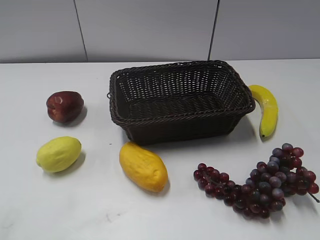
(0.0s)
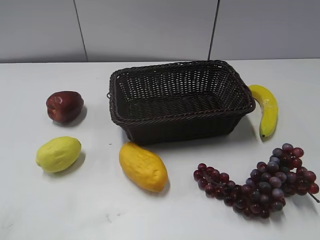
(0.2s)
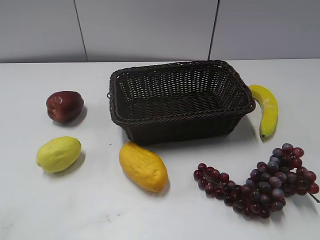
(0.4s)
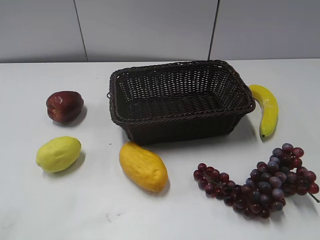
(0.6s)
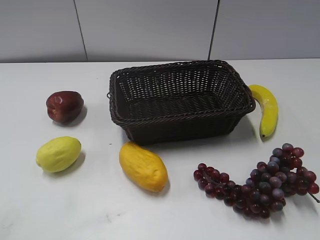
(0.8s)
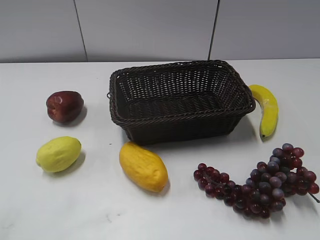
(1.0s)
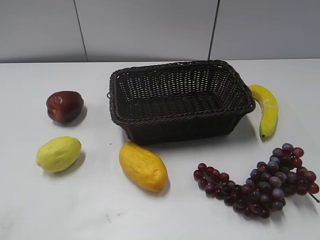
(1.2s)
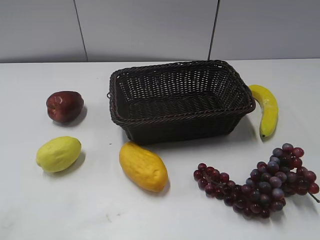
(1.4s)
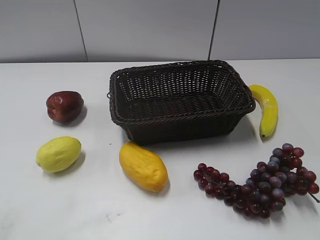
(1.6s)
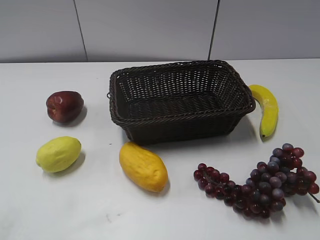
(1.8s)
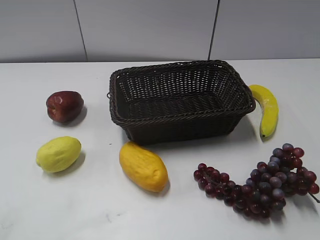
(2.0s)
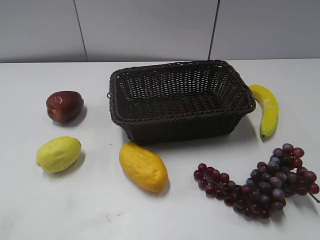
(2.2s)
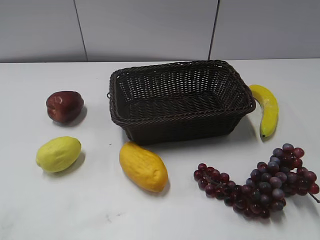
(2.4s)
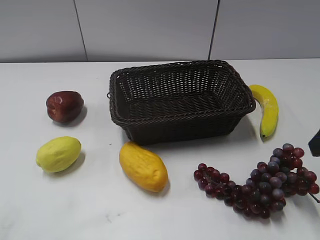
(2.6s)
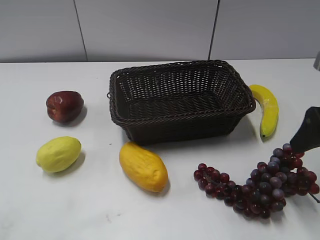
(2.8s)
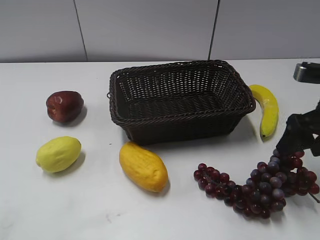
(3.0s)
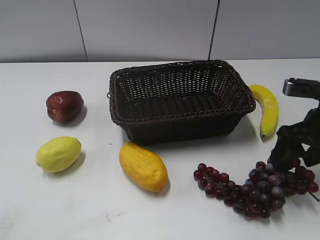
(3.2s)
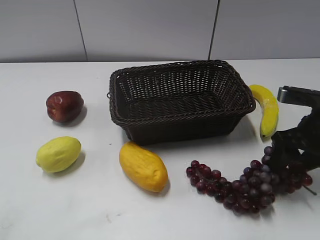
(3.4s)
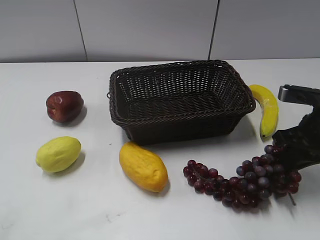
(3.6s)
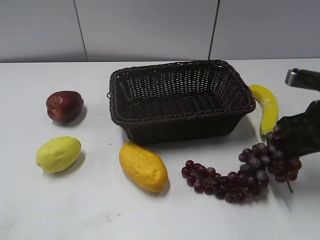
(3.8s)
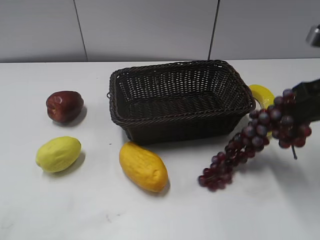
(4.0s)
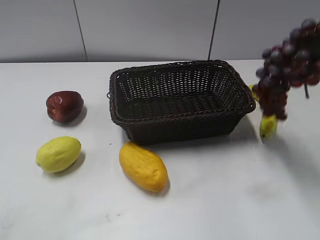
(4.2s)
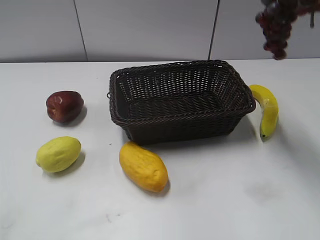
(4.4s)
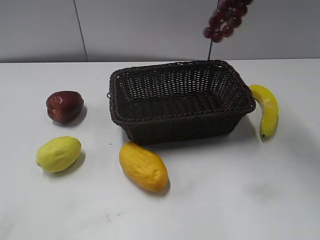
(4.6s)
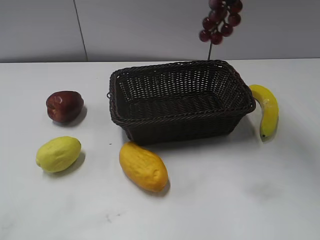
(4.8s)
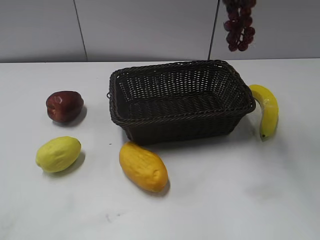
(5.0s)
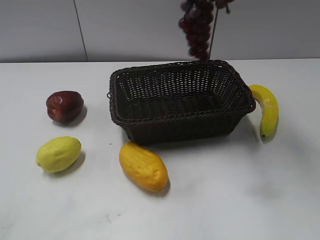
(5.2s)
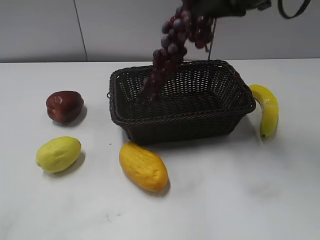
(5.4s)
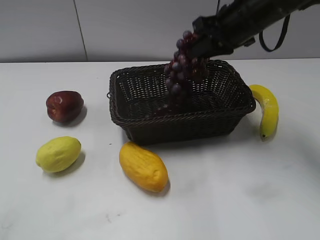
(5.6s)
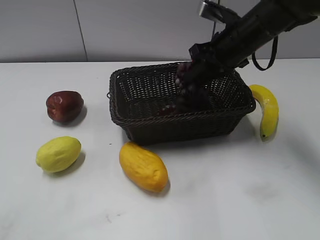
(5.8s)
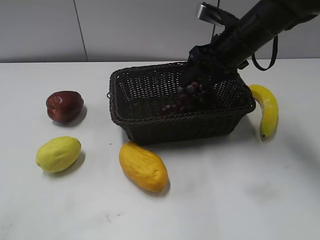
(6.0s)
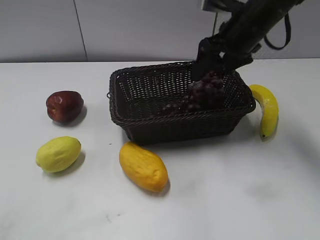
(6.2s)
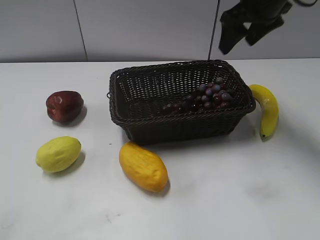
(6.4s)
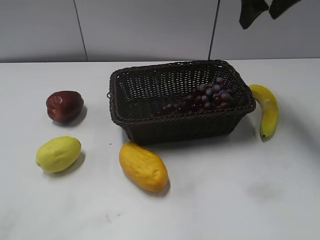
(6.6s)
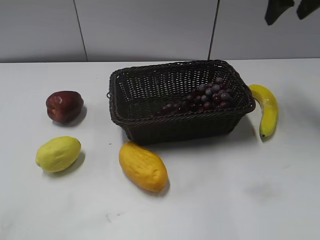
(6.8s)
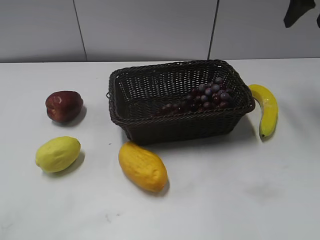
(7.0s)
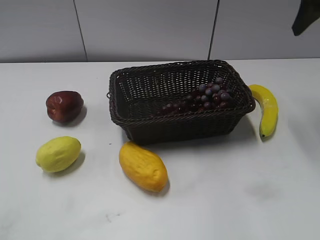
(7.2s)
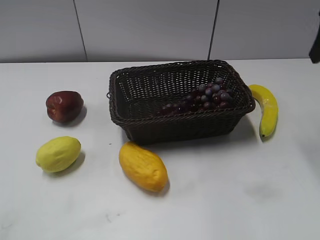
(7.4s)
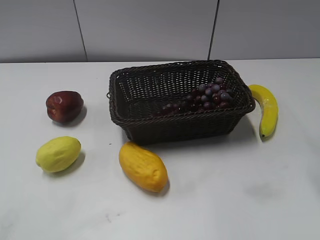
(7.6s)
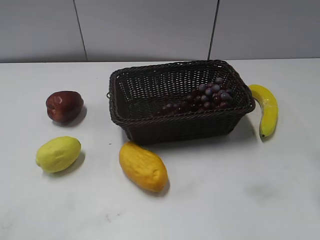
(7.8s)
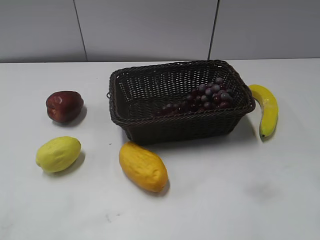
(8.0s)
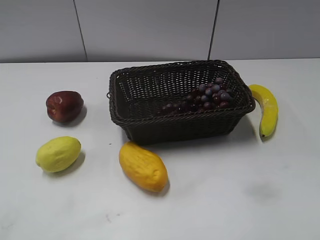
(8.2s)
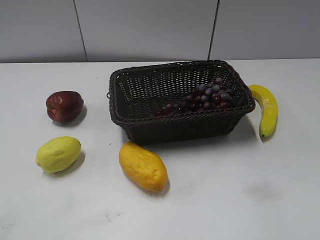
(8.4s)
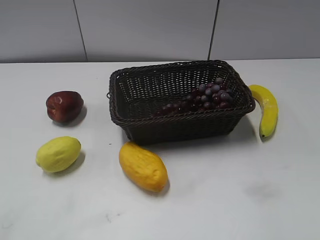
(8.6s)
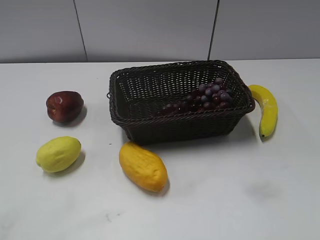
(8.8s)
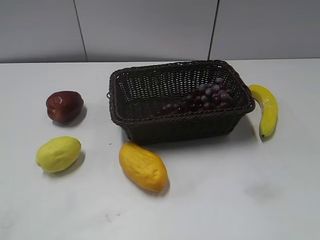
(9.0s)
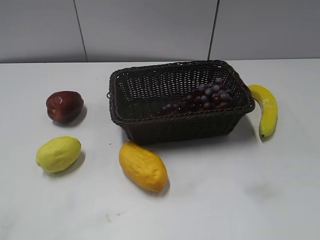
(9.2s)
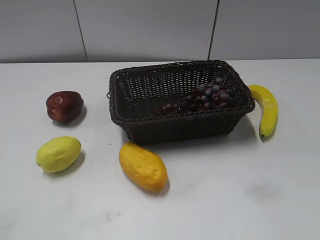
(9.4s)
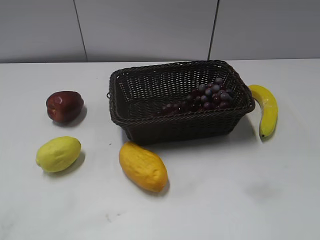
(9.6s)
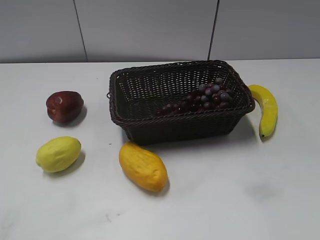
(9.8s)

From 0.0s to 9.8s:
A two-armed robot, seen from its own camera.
Step, from 2.6s to 3.6s: Grasp the grape with right gripper.
Step, from 3.8s to 6.2s: Place the grape in the basket with right gripper.
From 1.4s to 2.8s: The right gripper goes about 20 cm forward.
From 2.8s to 4.2s: The right gripper travels upward by about 10 cm, and closes up.
From 4.2s to 5.6s: The right gripper shifts some 20 cm forward, to the left and downward.
From 5.6s to 7.0s: The right gripper heads to the right and upward, covering approximately 15 cm, and opens.
From 7.0s to 8.4s: The right gripper travels backward by about 30 cm.

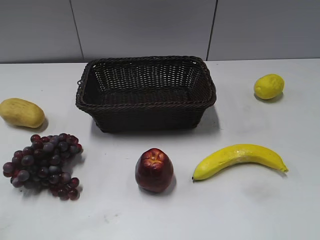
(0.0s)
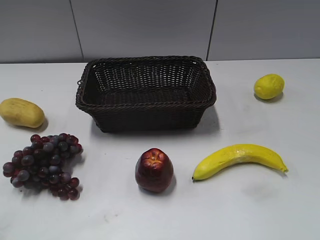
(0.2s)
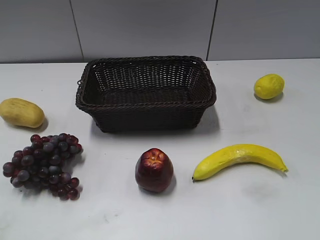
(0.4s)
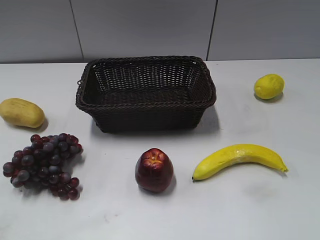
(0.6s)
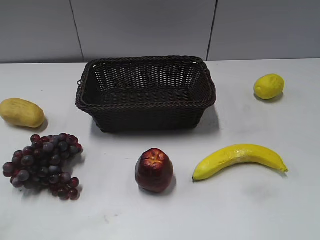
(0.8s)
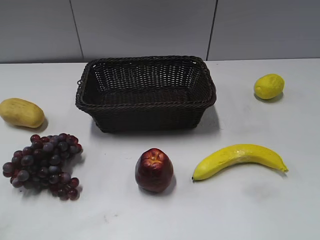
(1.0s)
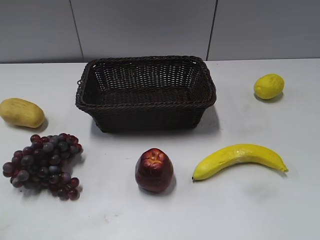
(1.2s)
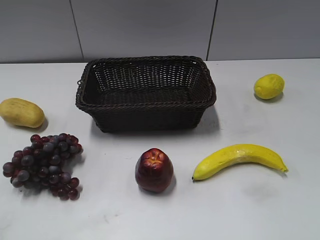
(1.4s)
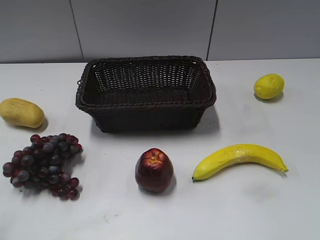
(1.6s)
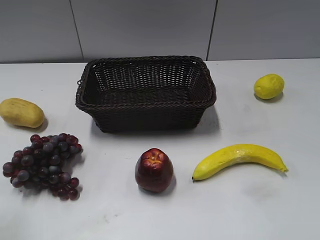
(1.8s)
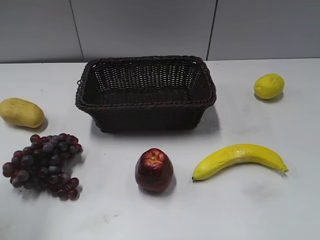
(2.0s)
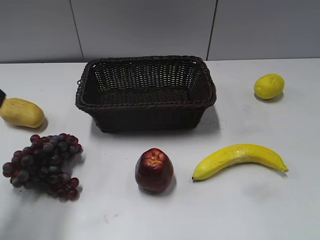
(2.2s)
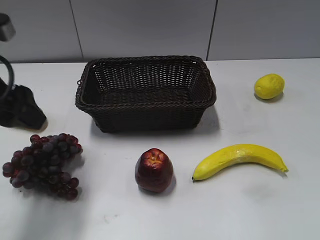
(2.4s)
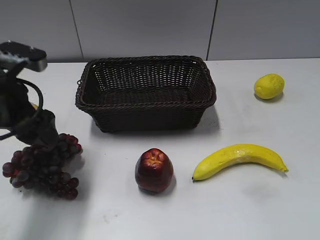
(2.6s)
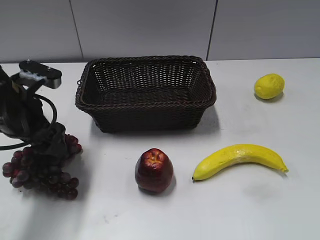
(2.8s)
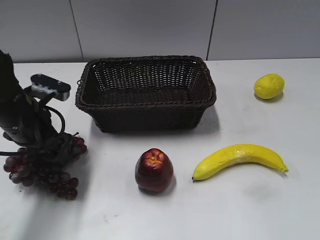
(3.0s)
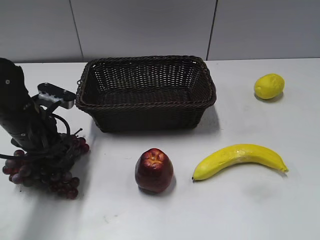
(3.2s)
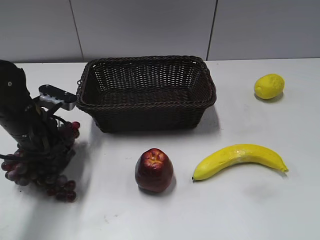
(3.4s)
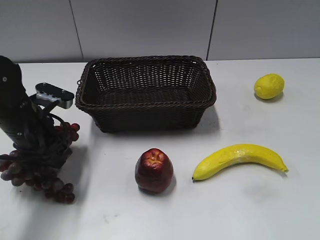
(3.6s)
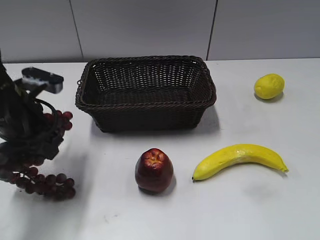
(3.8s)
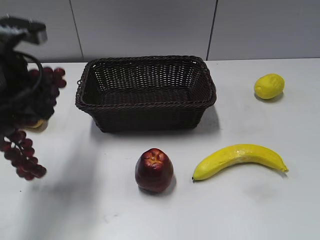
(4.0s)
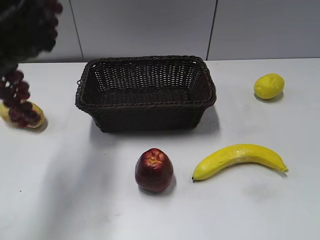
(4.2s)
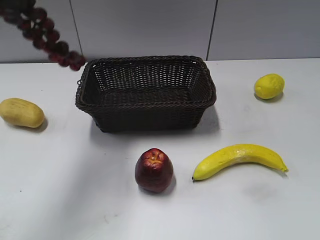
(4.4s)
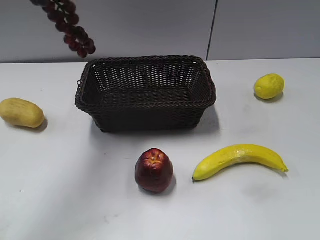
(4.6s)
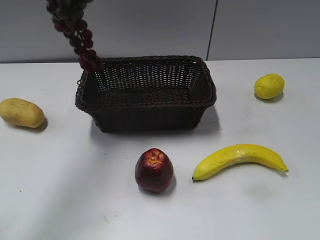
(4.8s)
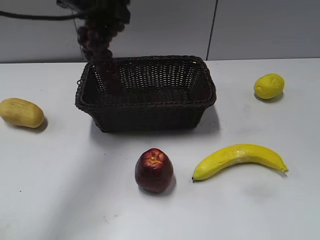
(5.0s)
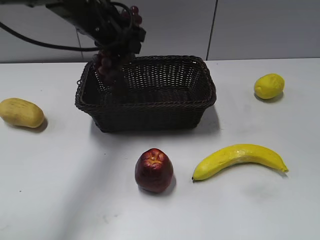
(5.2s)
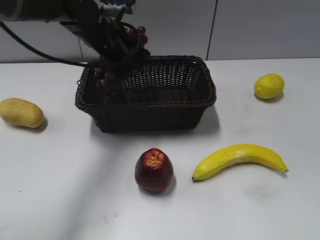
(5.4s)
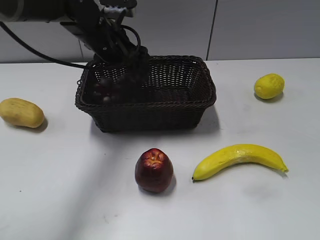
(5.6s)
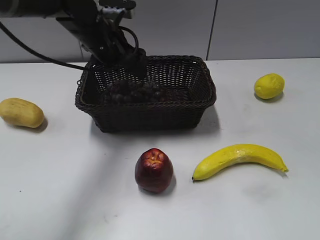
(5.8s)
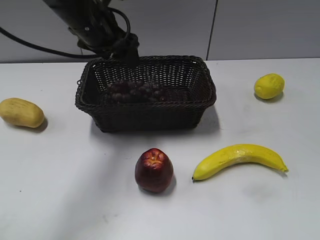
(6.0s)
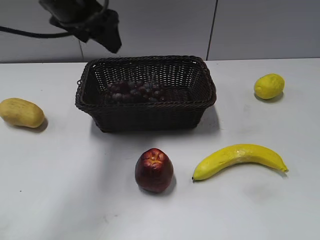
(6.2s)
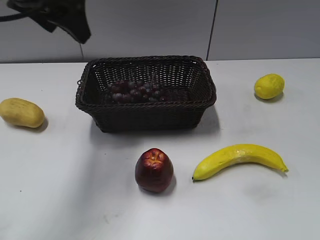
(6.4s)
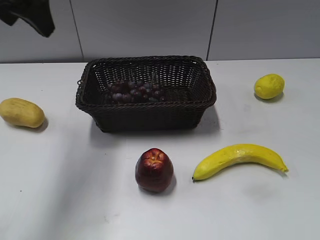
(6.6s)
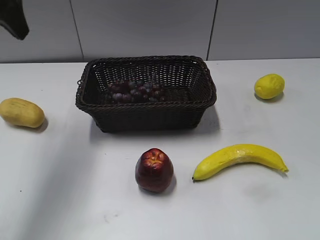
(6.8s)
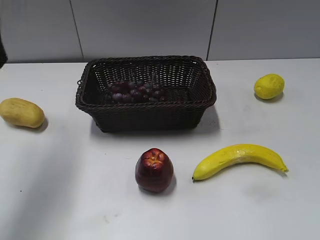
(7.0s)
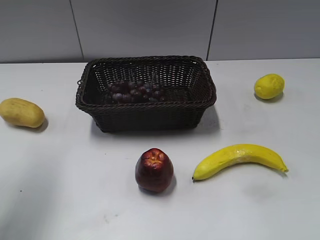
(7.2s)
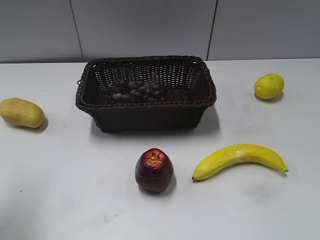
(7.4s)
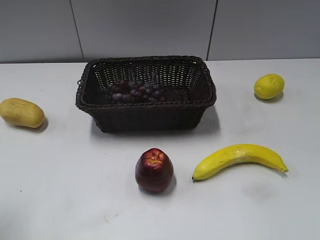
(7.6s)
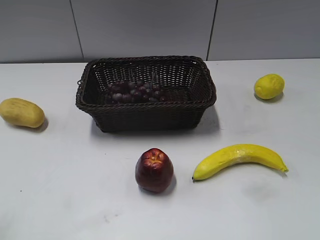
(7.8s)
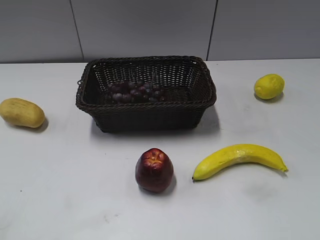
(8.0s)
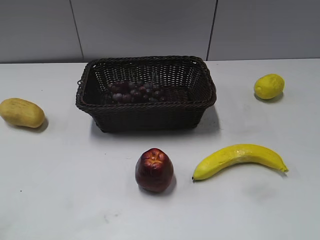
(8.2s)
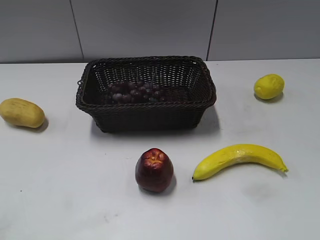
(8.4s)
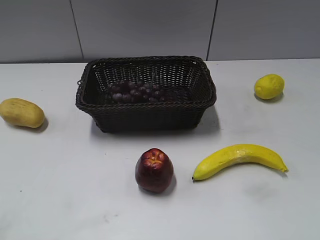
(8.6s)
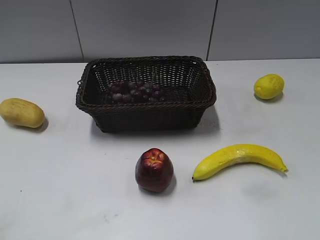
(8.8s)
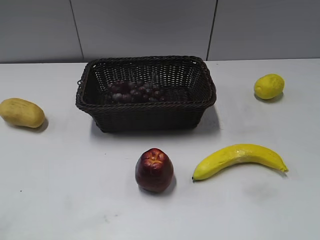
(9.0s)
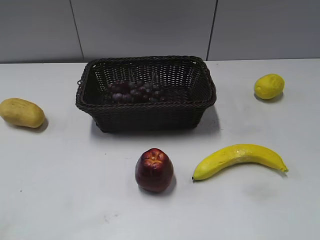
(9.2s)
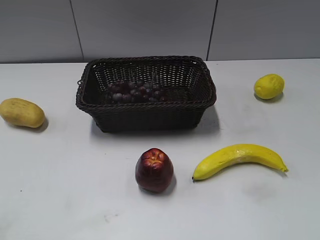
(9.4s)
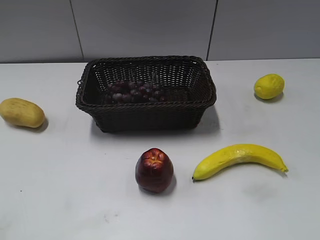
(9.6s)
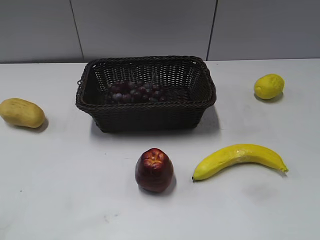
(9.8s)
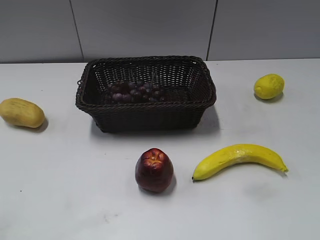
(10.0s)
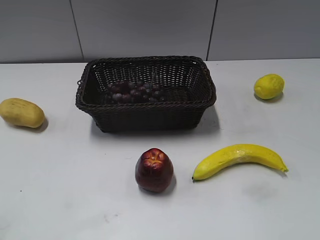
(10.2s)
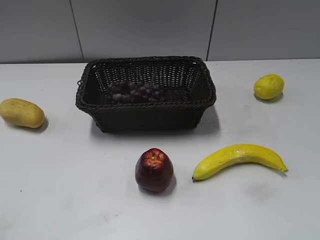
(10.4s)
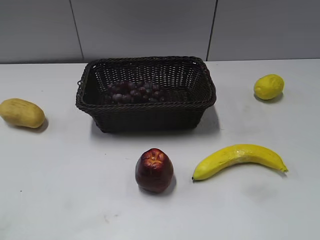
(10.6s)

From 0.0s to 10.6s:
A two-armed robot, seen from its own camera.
Step, from 2.2s to 3.4s: Grasp the grape with left gripper.
Step, from 3.6s to 5.6s: Place the grape in the basket with left gripper.
From 1.6s to 3.0s: The left gripper goes approximately 30 cm forward, downward and to the right.
From 3.0s to 4.6s: The left gripper travels upward by approximately 25 cm, and closes.
From 4.6s to 6.0s: The left gripper travels downward and to the right by some 20 cm, and opens up.
From 6.0s to 7.6s: The left gripper heads backward and to the left, covering roughly 30 cm.
